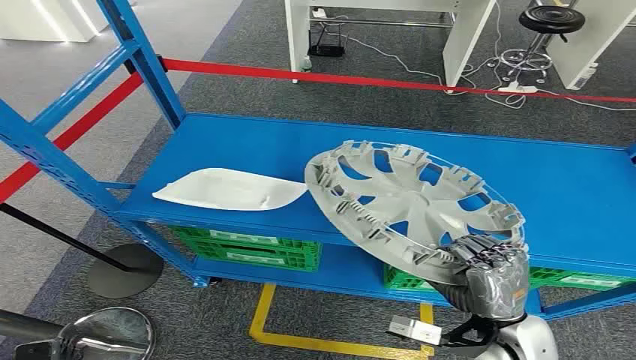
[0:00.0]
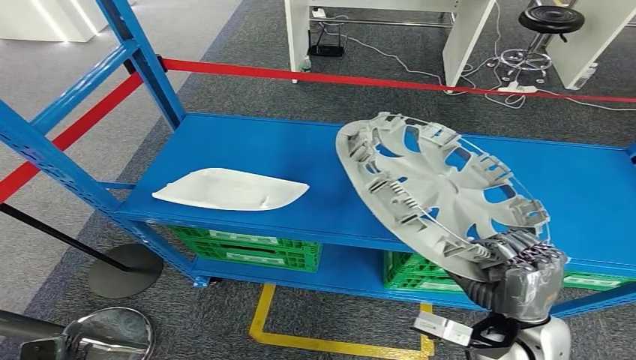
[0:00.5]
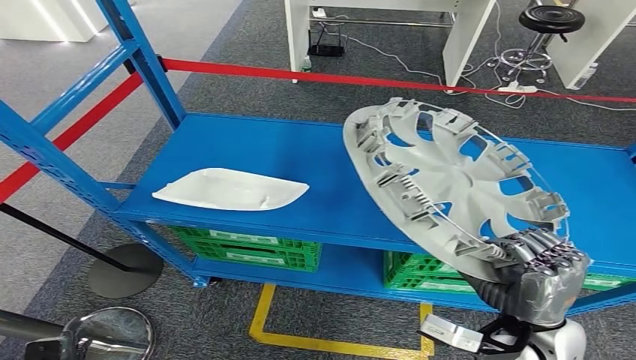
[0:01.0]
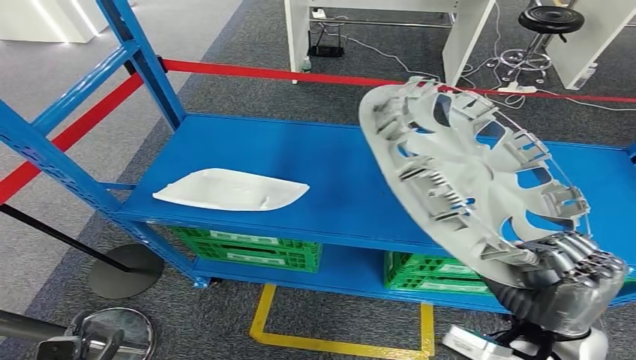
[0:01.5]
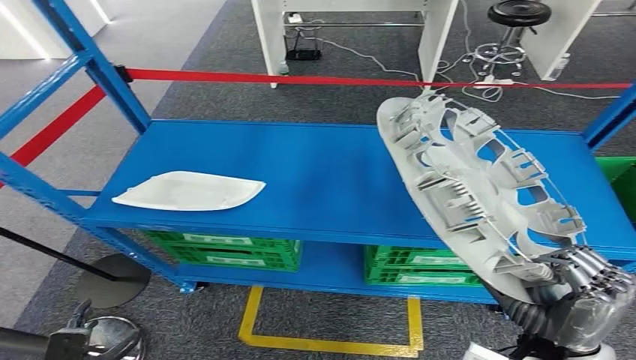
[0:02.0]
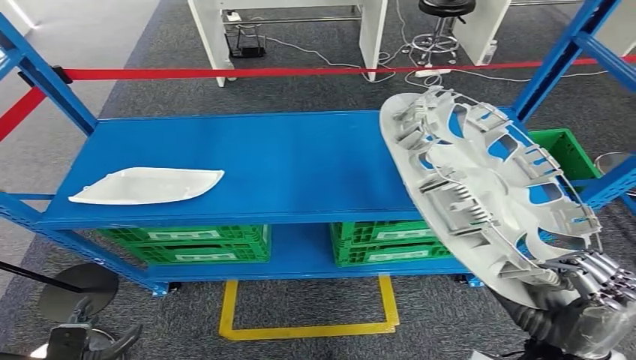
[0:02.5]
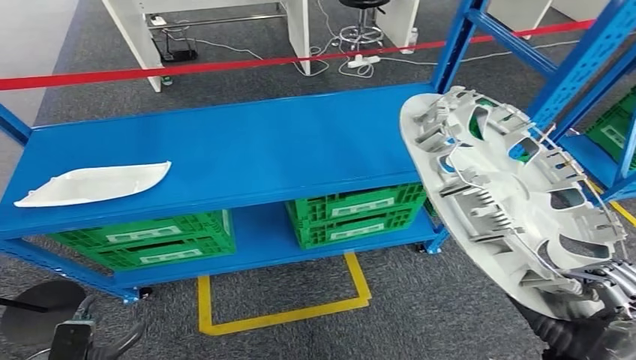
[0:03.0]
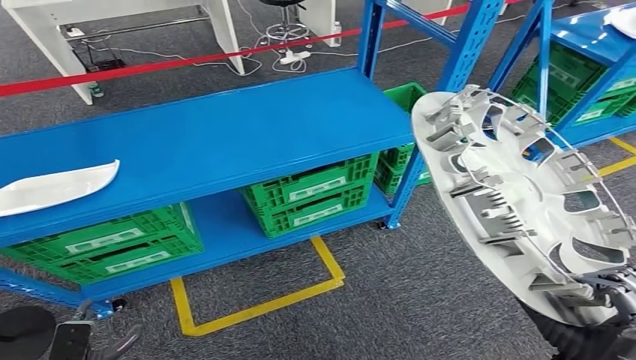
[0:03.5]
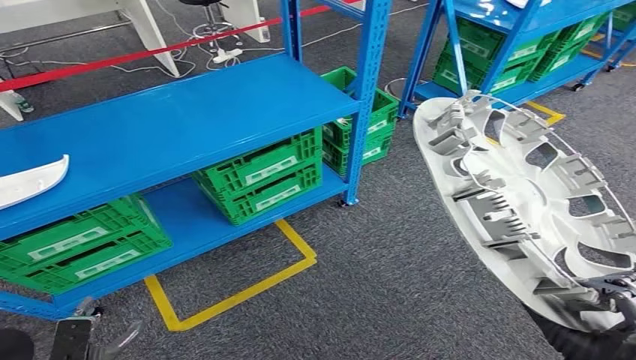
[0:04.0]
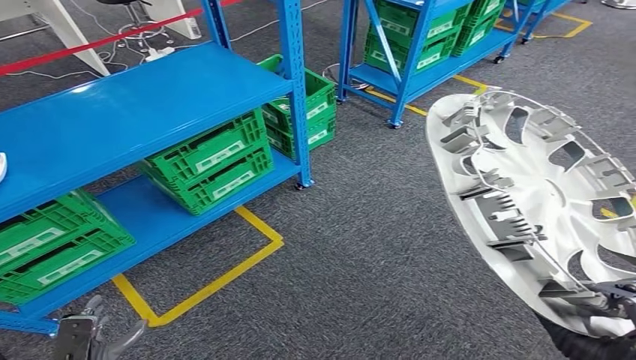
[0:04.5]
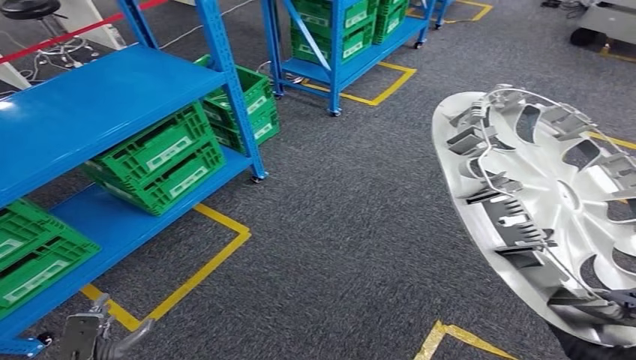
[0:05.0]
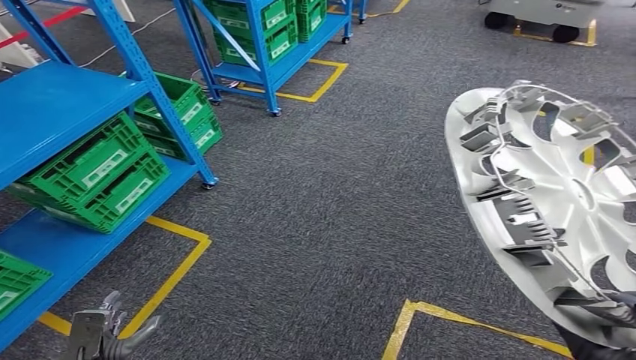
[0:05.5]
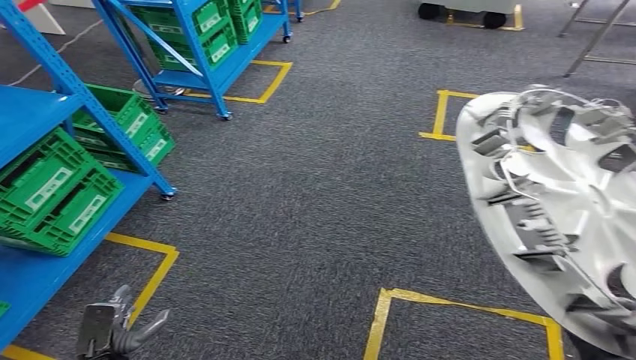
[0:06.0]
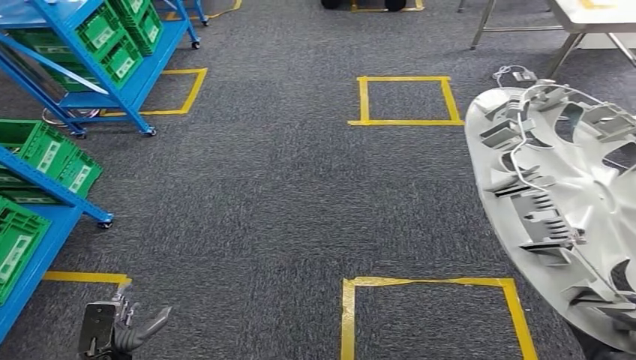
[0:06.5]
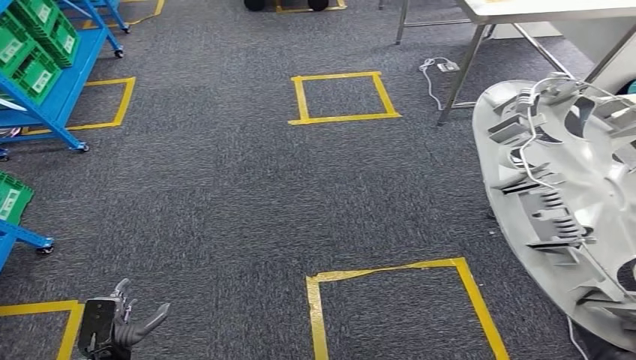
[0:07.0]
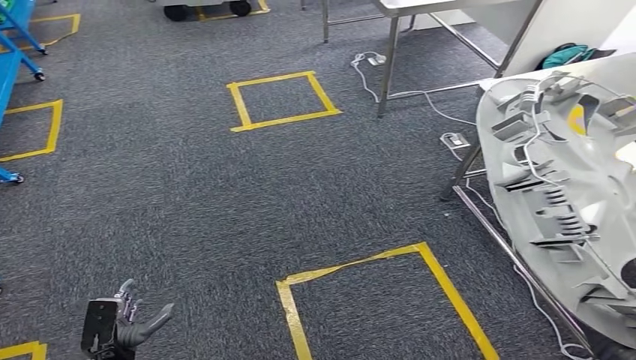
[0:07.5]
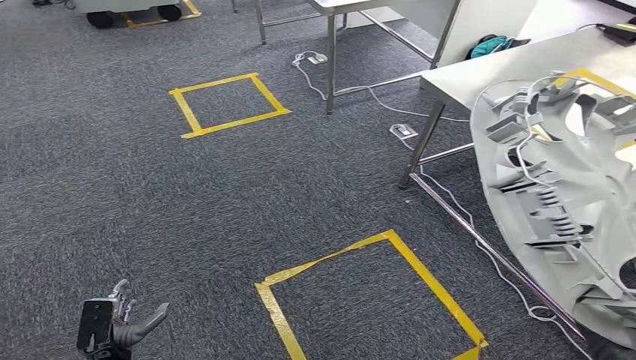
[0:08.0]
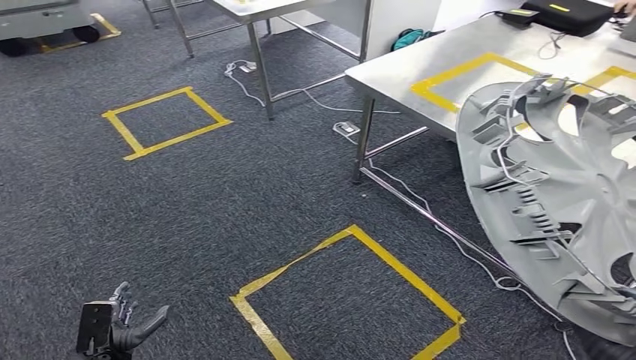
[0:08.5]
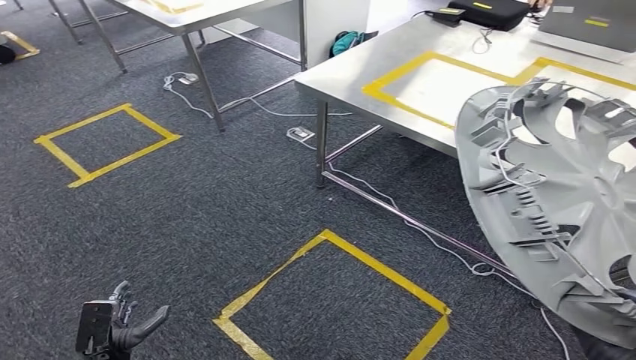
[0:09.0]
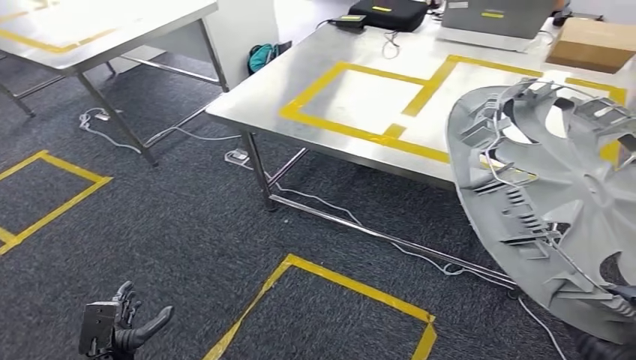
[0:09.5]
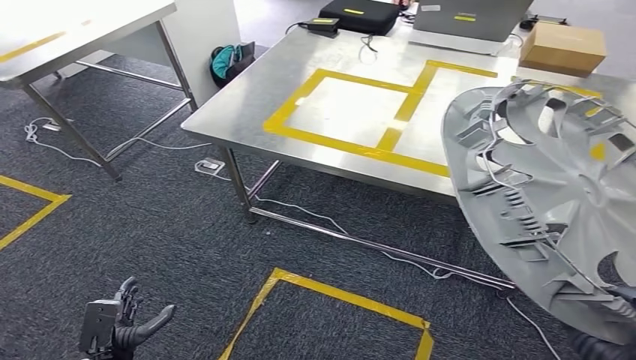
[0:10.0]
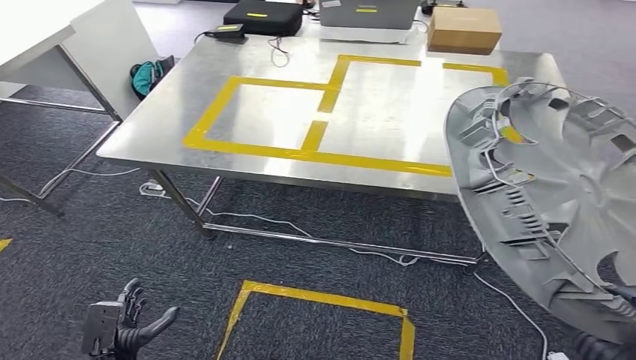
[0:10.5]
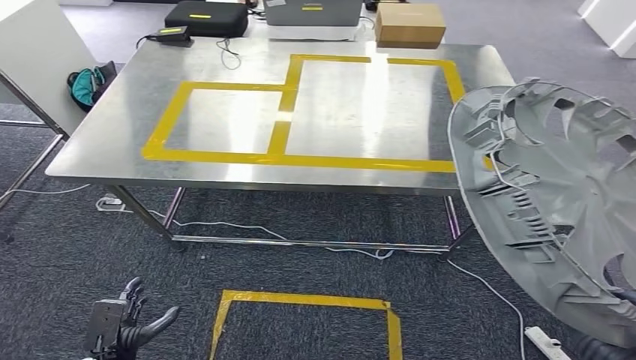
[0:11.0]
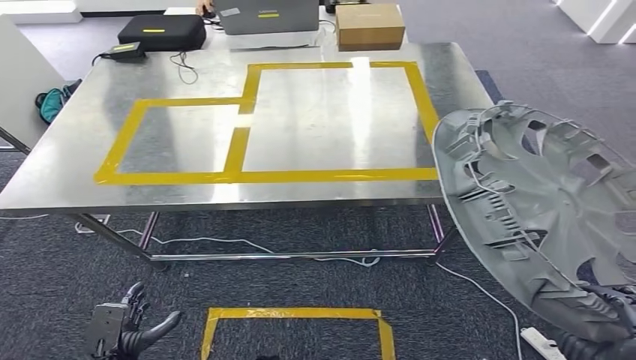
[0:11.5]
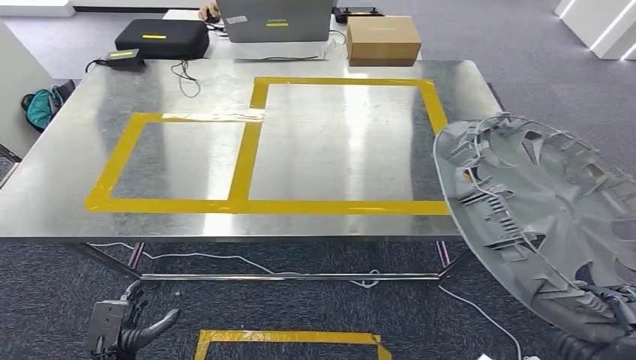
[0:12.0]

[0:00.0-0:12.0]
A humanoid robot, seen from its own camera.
Step, 0:00.0 to 0:02.0: Take small components from the rack.

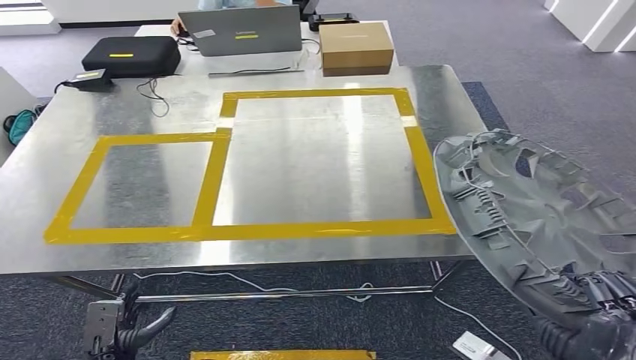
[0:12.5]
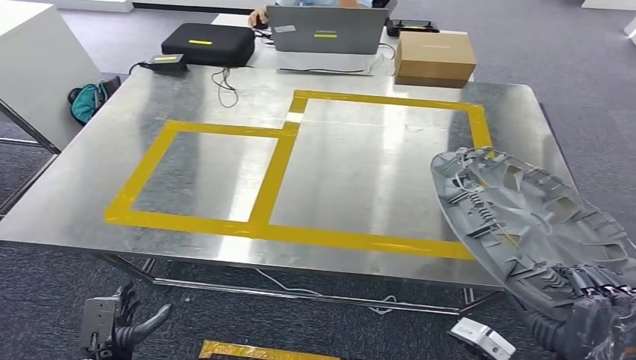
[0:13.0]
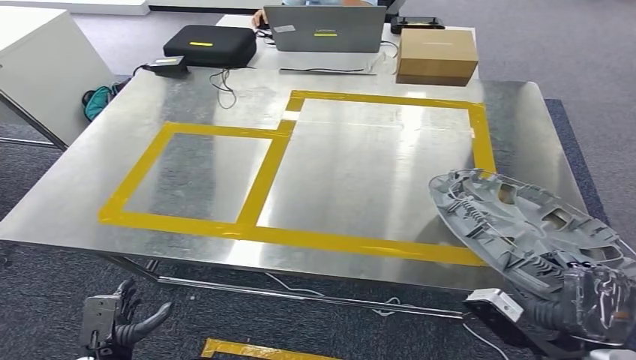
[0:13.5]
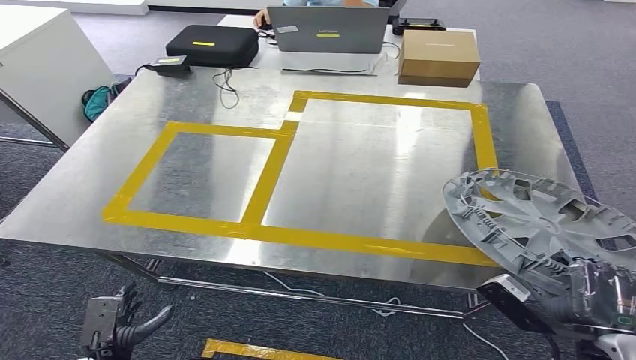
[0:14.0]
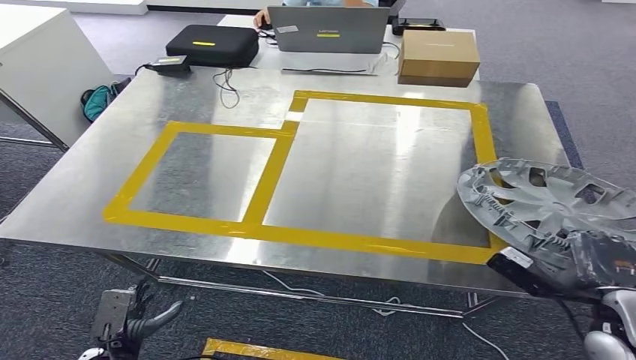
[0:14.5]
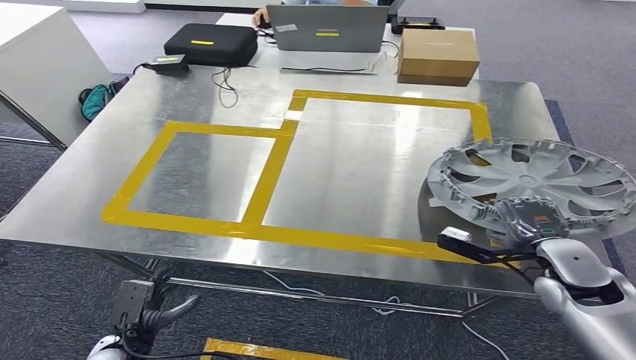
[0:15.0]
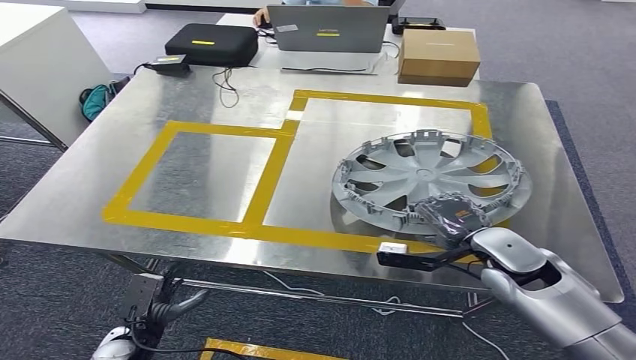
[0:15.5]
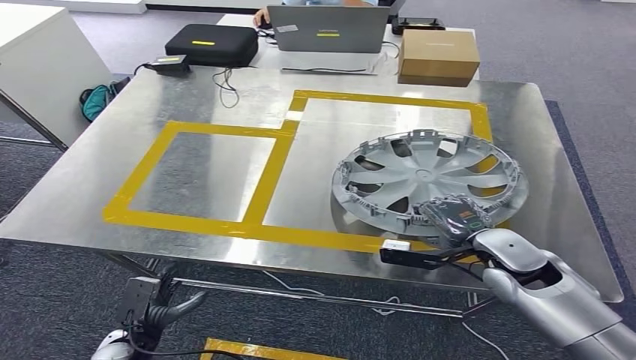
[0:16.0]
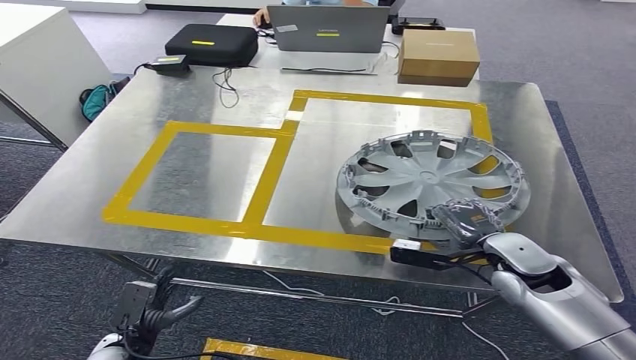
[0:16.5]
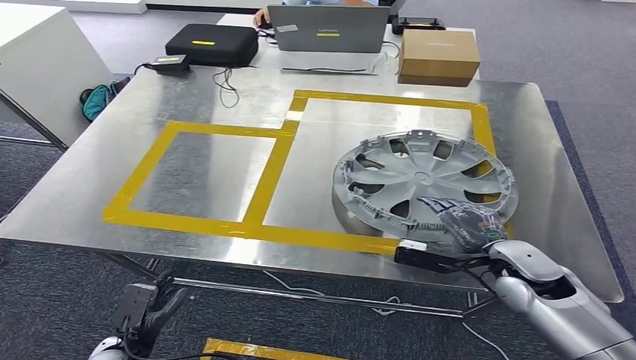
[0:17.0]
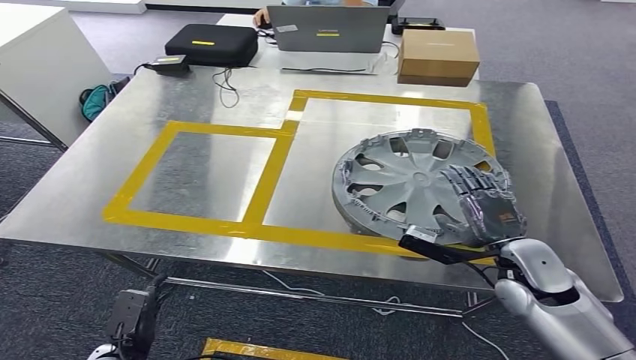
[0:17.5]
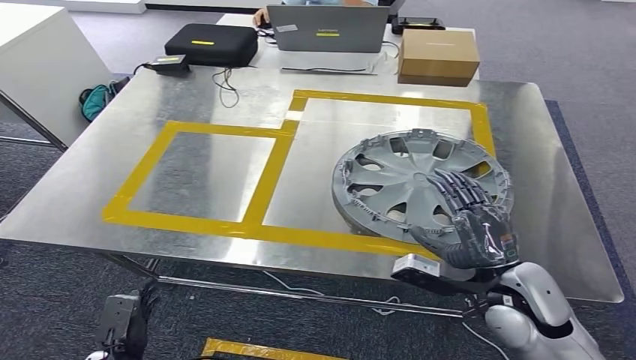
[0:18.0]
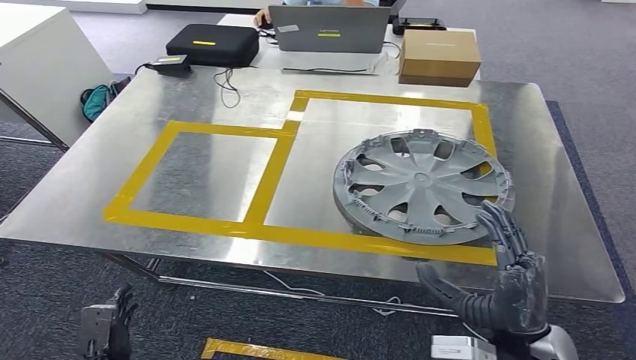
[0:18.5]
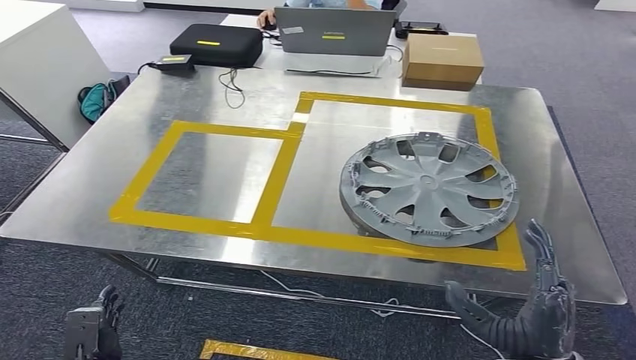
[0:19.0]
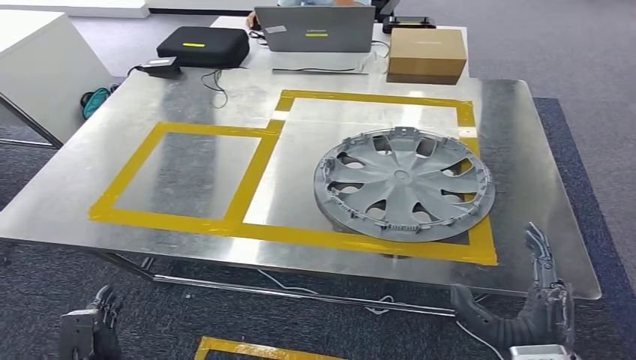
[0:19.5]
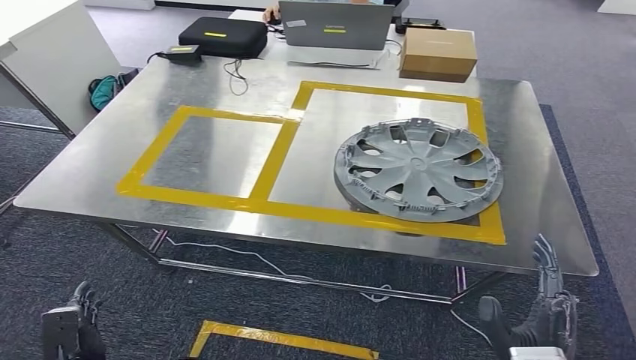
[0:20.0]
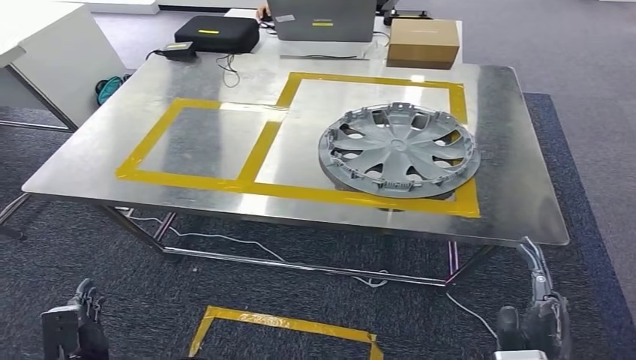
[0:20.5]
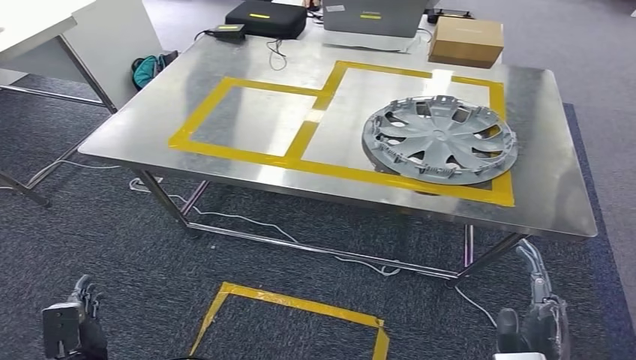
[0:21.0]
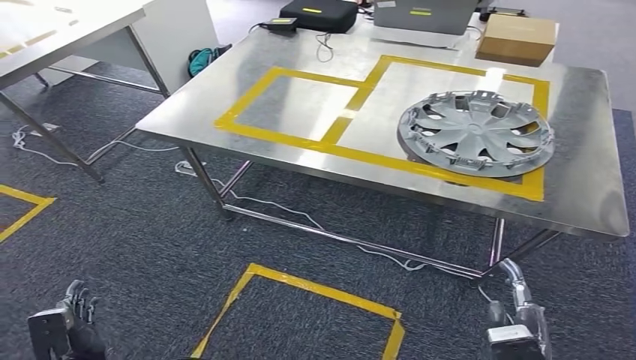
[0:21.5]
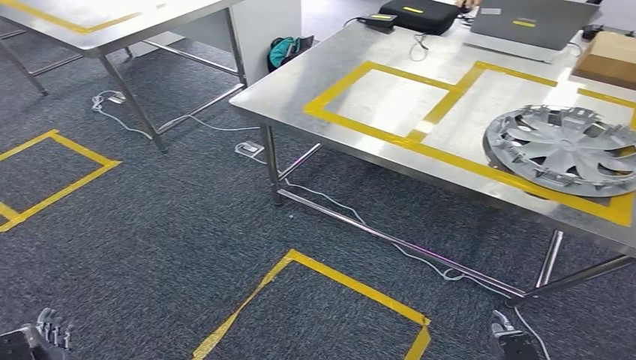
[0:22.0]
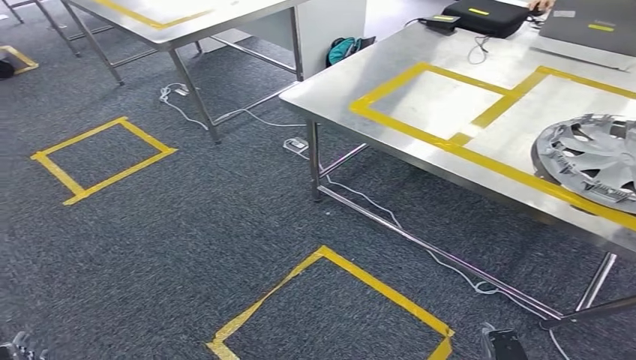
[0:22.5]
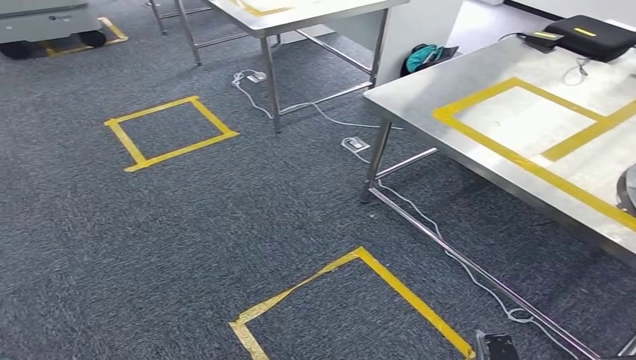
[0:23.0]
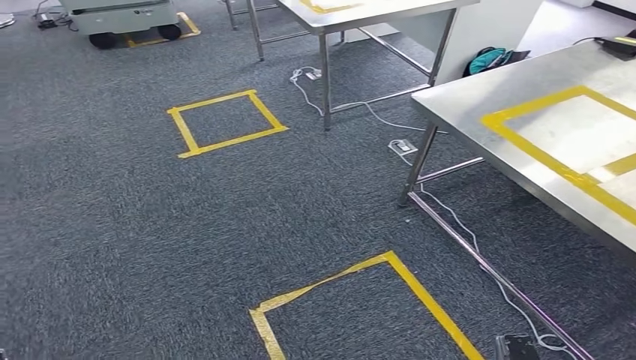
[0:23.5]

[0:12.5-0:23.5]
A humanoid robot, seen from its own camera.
Step, 0:13.0 to 0:19.0: Insert the small parts into the corresponding holes on the workbench.
0:14.5 to 0:16.0: The right hand goes approximately 15 cm forward and to the left.
0:16.0 to 0:18.0: The right hand moves backward, approximately 5 cm.
